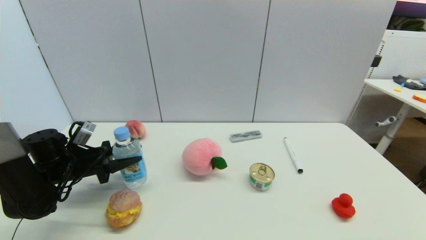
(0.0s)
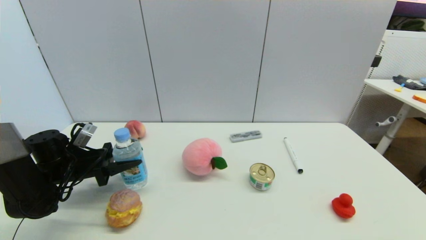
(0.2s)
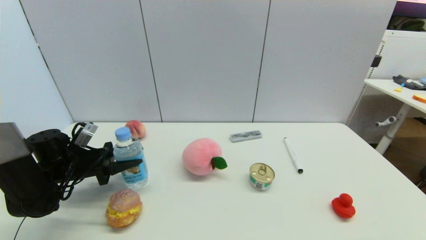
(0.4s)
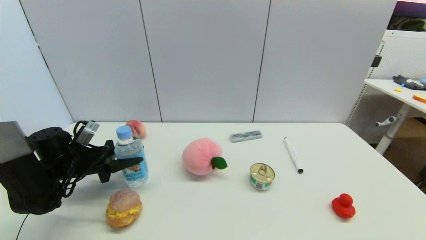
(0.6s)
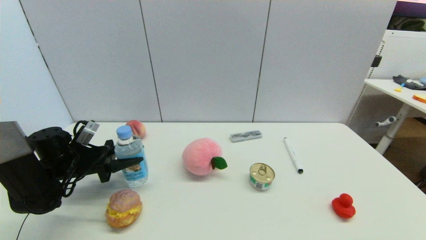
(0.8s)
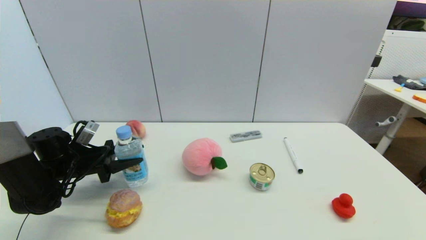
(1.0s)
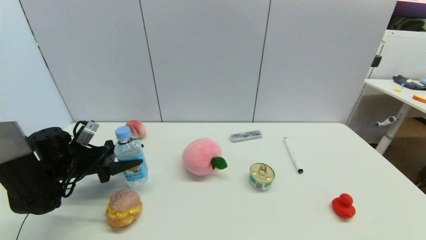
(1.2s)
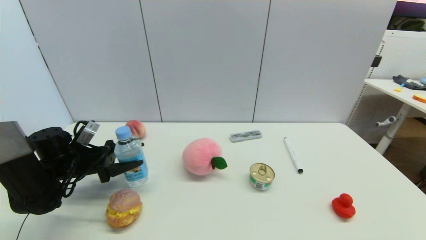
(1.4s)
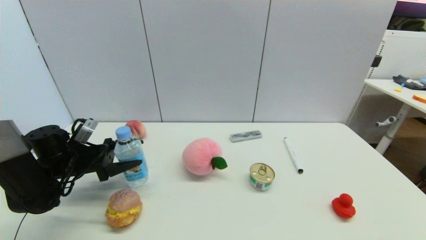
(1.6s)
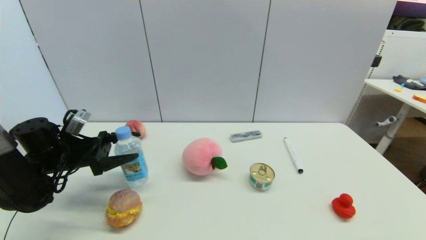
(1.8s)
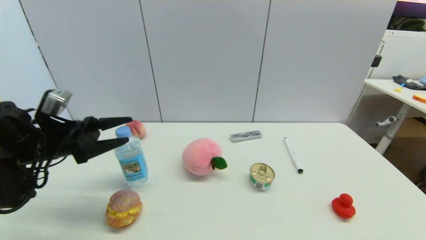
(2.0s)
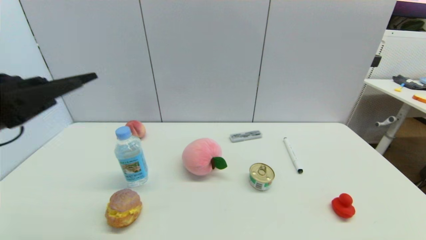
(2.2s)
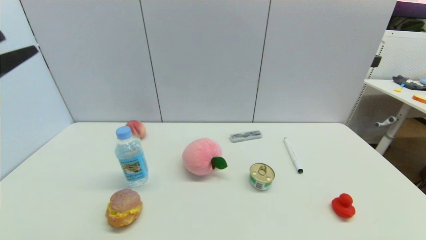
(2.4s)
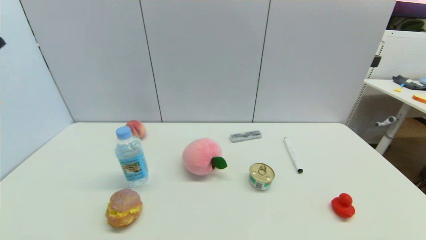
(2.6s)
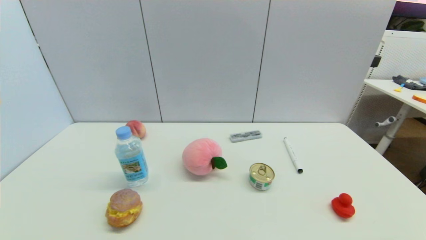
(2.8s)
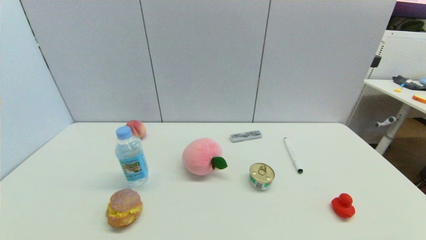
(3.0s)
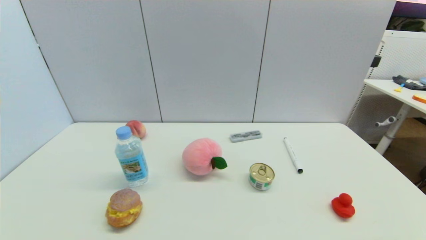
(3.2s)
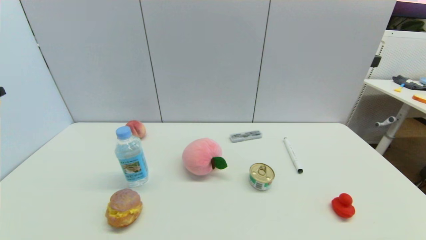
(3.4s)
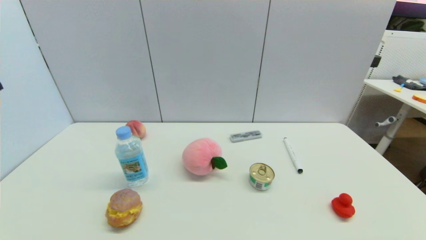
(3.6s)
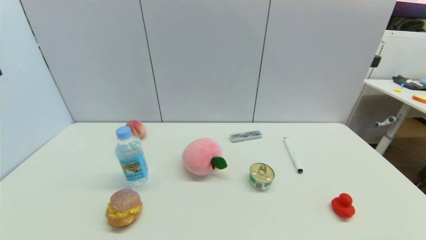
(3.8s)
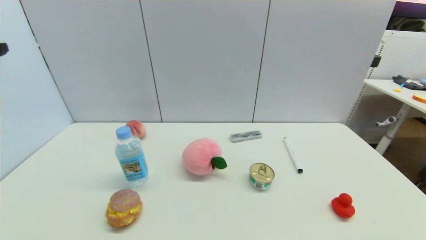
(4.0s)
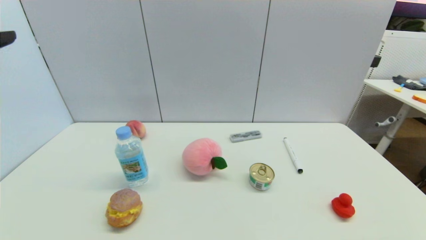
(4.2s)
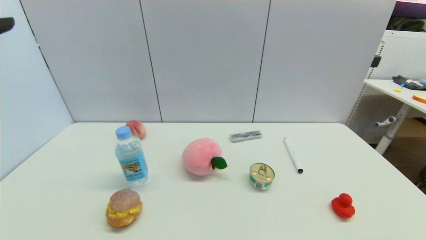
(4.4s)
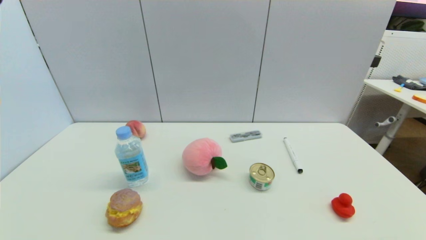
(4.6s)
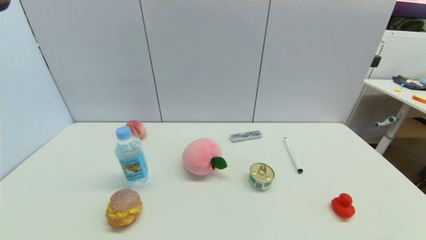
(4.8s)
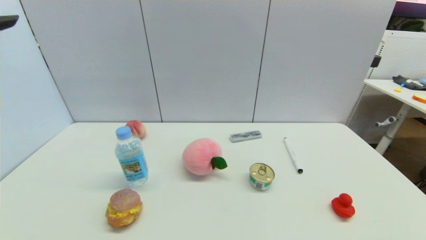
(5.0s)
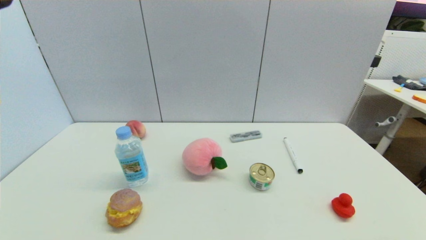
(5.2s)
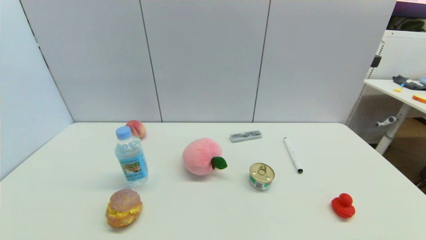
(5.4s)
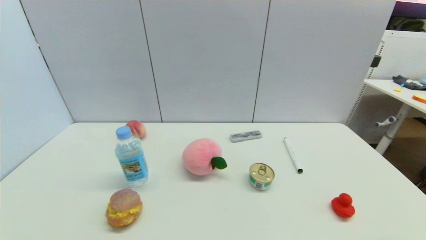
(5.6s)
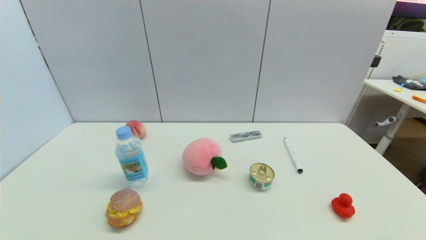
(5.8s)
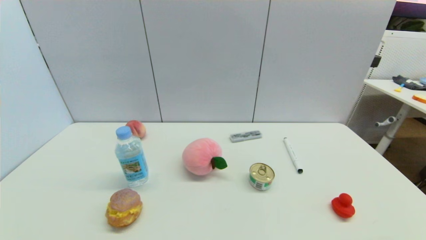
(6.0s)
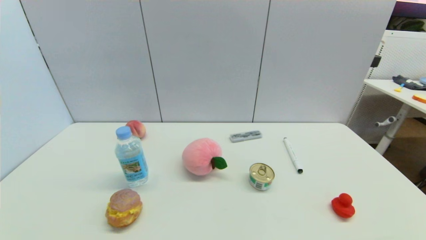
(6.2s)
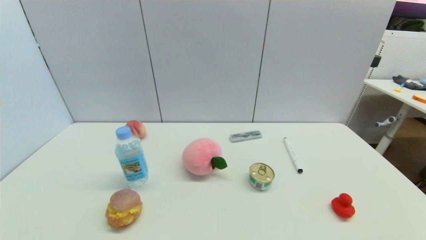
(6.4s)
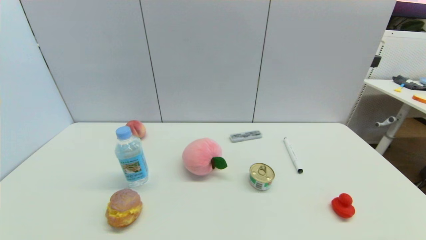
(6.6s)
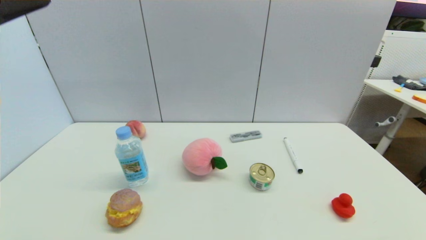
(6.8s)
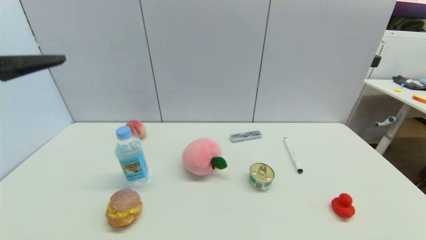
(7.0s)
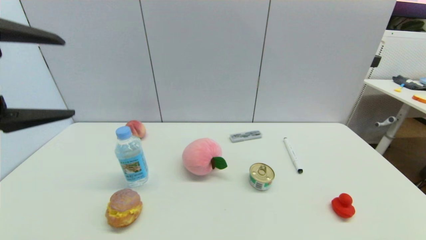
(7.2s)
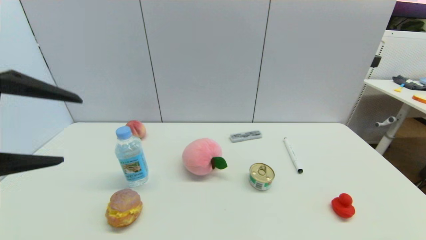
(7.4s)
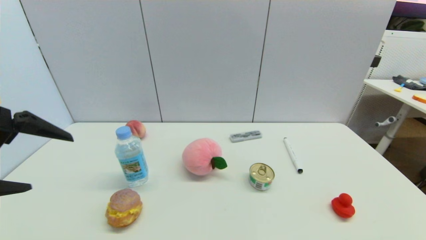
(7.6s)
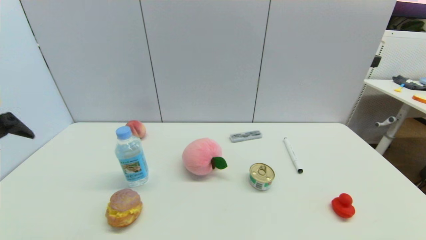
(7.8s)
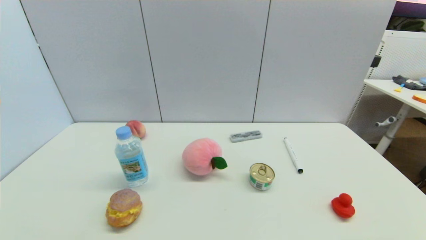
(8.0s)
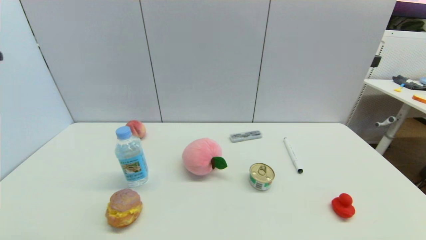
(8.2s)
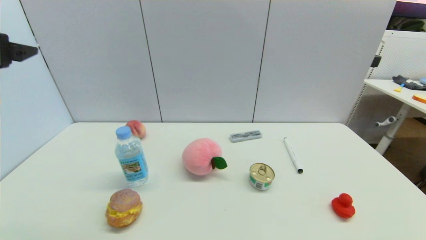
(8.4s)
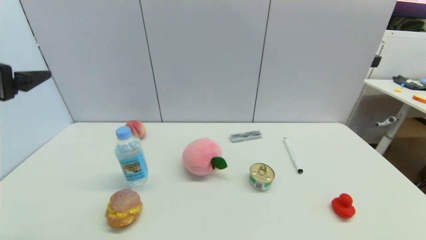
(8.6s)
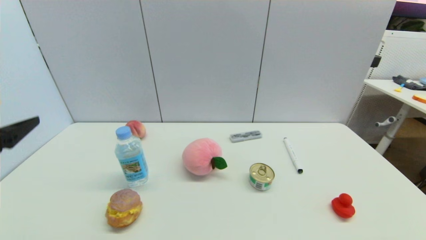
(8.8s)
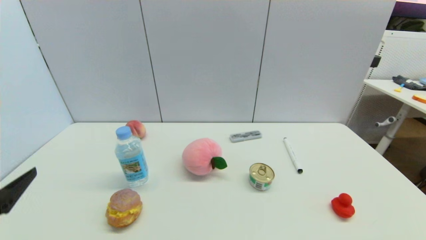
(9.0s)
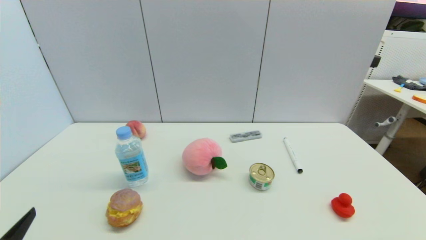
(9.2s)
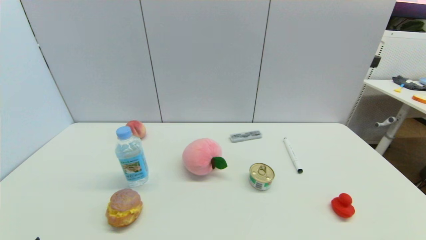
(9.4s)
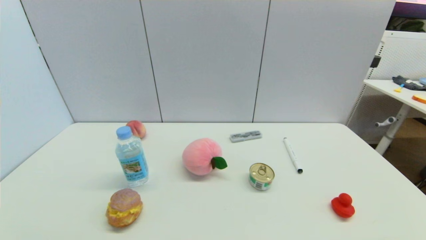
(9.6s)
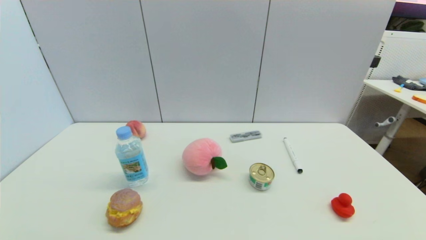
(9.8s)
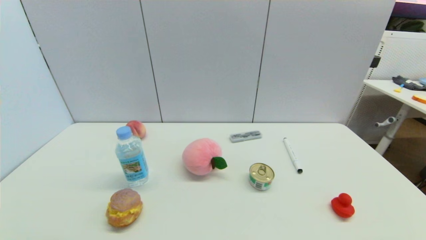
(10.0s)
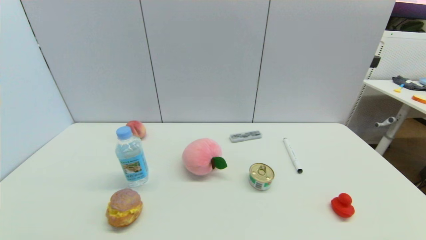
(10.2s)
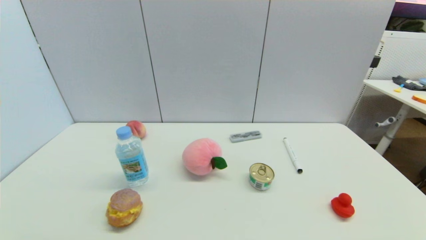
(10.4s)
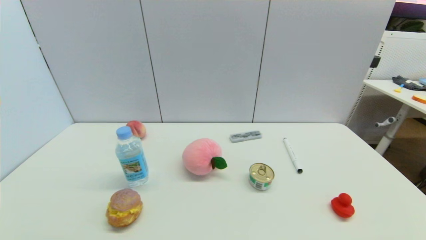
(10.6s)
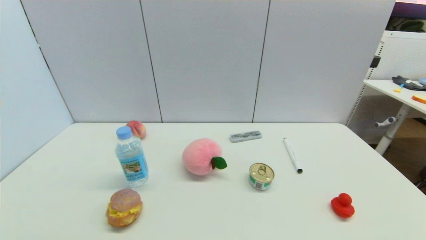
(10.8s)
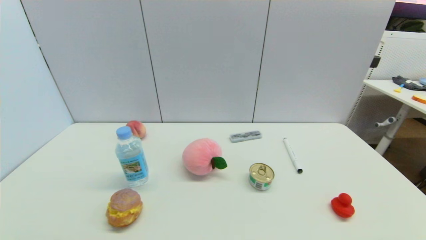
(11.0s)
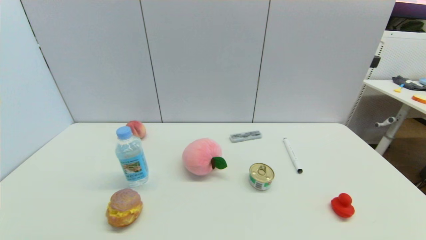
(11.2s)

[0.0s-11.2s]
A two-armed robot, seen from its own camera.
0.0s to 1.6s: The left gripper opens its fingers.
1.6s to 3.2s: The left gripper heads upward and backward, covering some 30 cm.

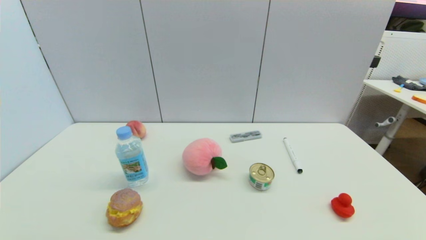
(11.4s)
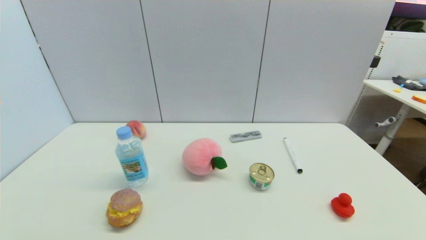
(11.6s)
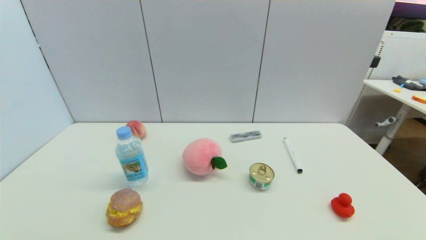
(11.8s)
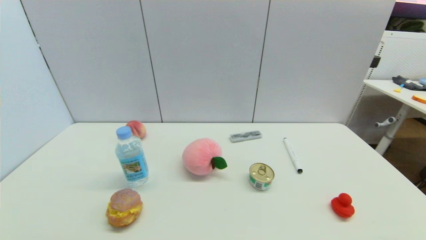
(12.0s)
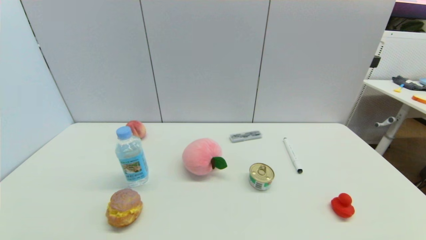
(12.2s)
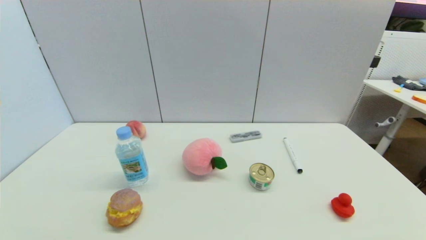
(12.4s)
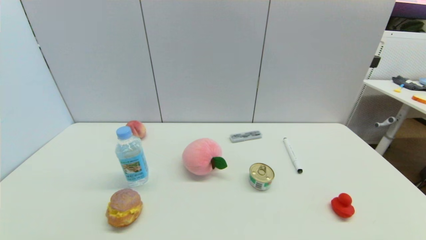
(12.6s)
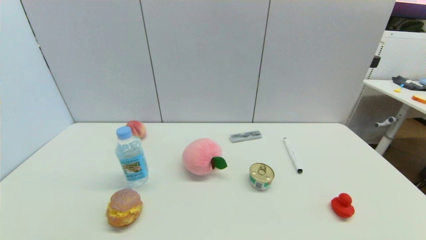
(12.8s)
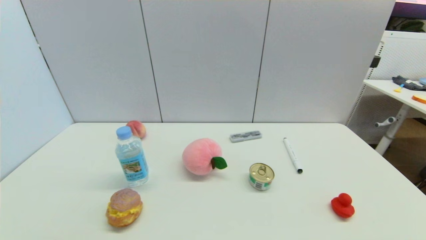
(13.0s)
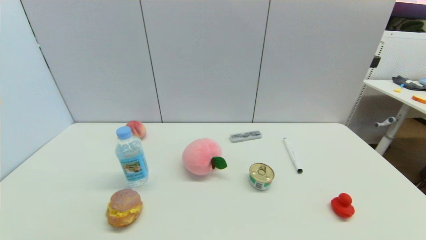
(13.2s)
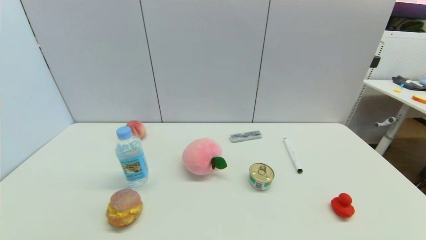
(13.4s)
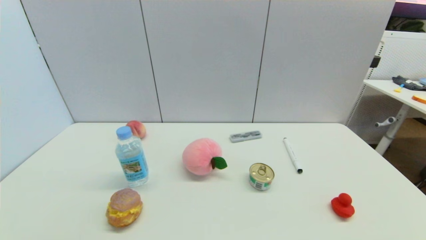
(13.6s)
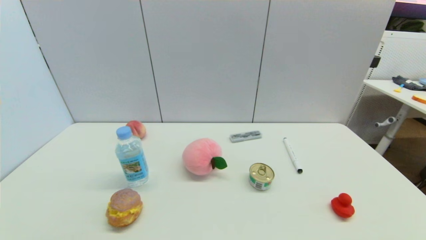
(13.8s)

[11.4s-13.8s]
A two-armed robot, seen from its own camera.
12.6s to 13.8s: Neither gripper changes place.
